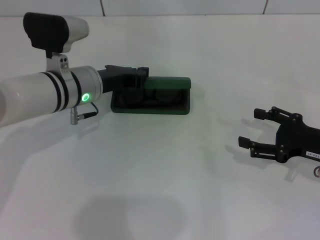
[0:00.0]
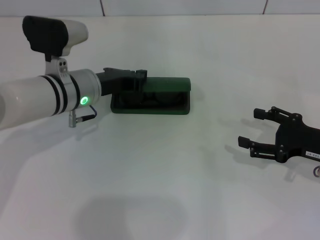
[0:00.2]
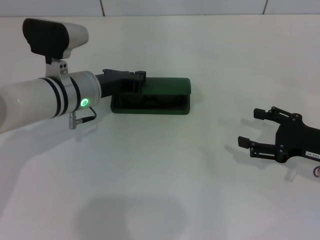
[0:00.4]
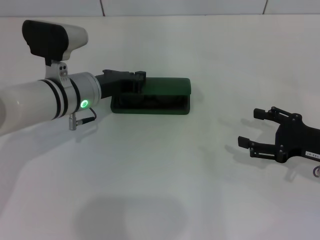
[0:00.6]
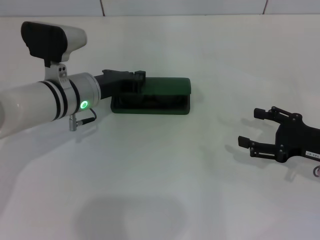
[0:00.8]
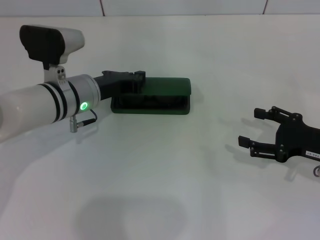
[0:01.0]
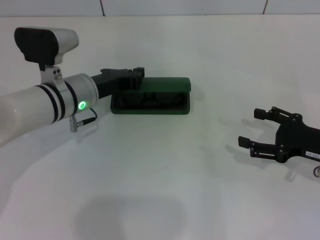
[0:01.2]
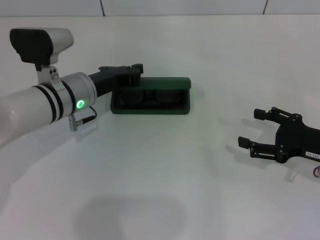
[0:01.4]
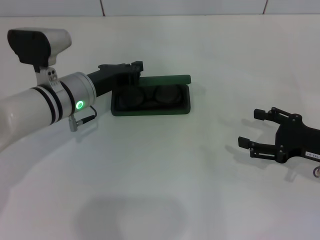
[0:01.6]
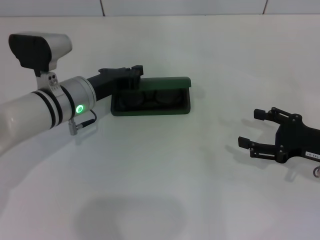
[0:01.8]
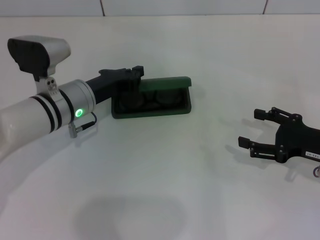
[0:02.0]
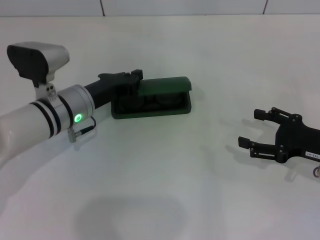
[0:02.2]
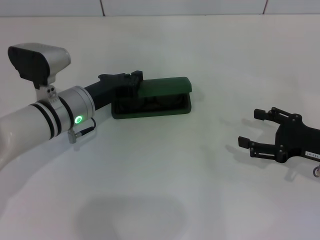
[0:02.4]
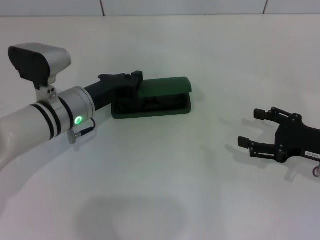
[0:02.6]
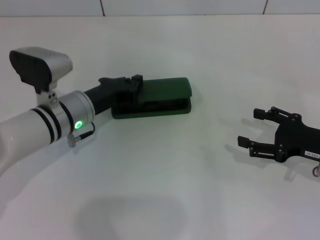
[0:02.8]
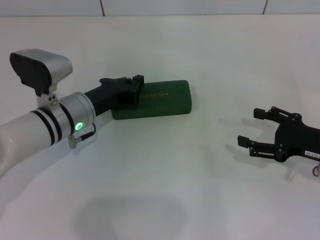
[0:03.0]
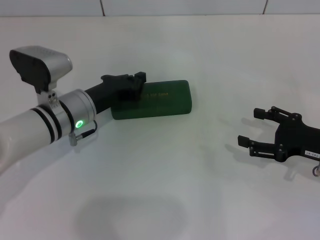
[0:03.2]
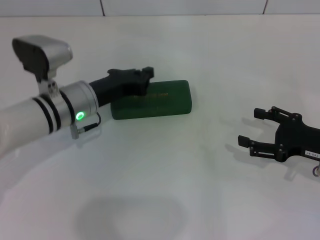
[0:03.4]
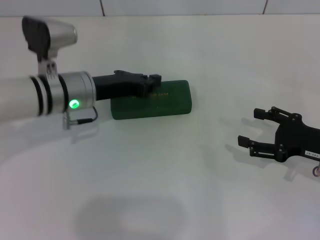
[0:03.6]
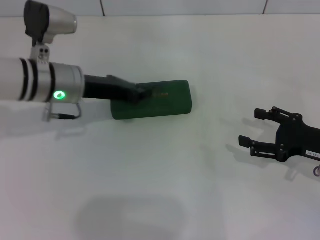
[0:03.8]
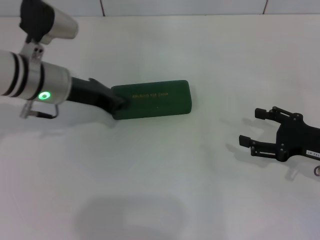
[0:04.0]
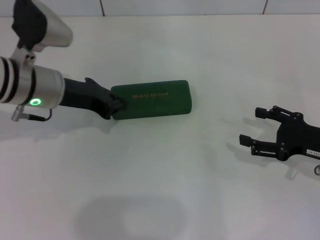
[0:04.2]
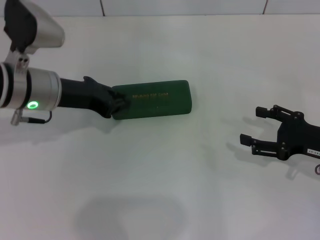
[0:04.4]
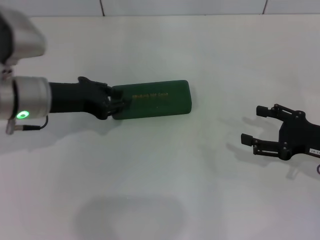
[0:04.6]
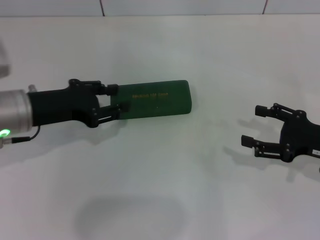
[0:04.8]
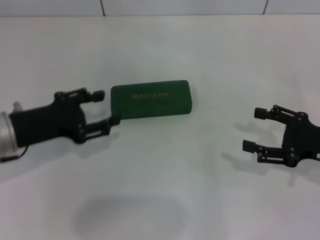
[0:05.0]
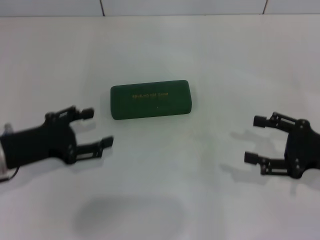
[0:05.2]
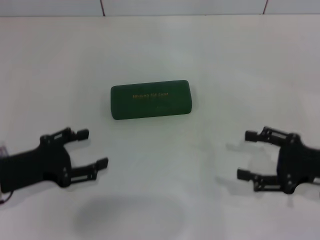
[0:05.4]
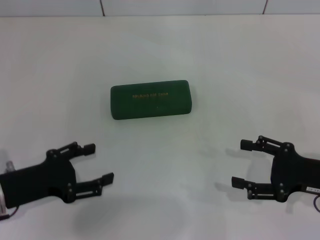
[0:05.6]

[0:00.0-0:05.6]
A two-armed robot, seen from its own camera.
Step, 0:00.0 to 0:02.8: Close the glasses case with your left hand.
0:00.0 to 0:02.8: The grippers stay close to where they were, moving slightly.
0:02.8 to 0:04.2: The left gripper heads upward, covering about 10 cm.
0:04.2 to 0:05.6: The left gripper travels backward, to the left and downward by about 20 cm, and opens its fingers.
